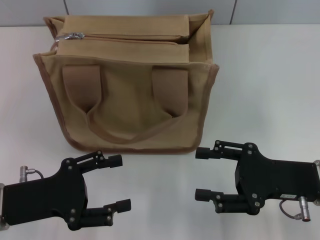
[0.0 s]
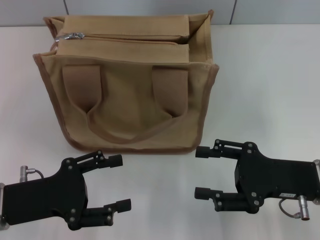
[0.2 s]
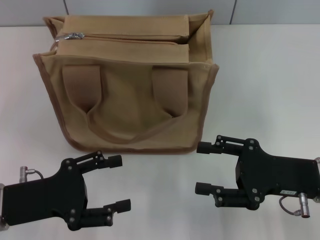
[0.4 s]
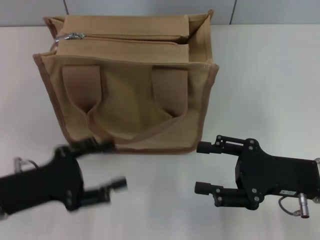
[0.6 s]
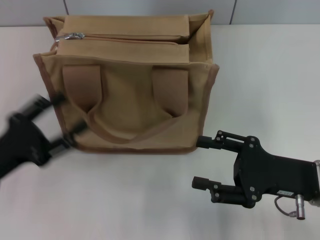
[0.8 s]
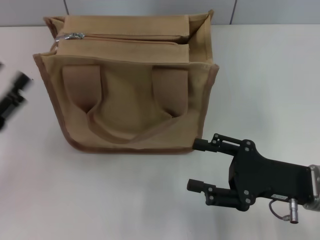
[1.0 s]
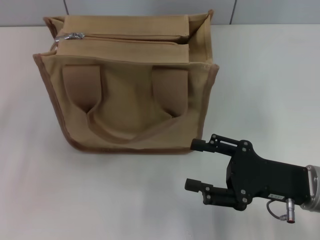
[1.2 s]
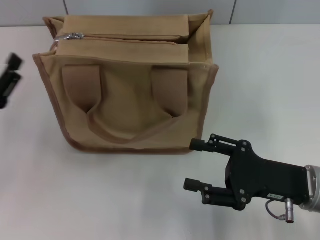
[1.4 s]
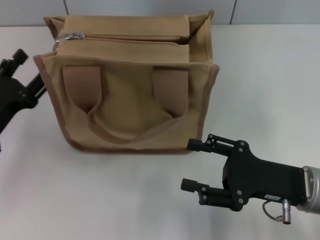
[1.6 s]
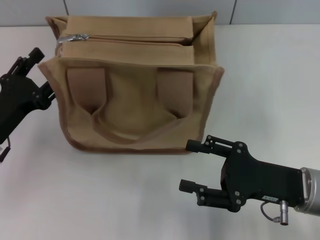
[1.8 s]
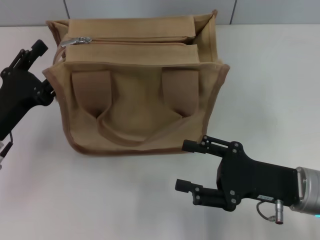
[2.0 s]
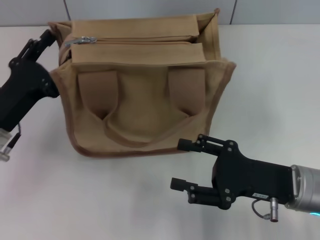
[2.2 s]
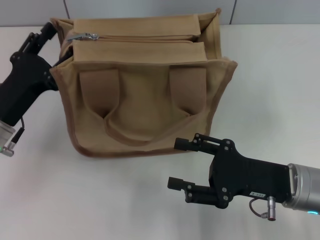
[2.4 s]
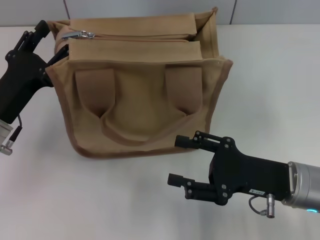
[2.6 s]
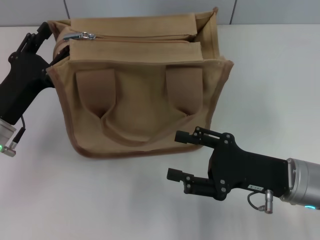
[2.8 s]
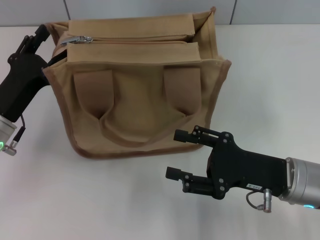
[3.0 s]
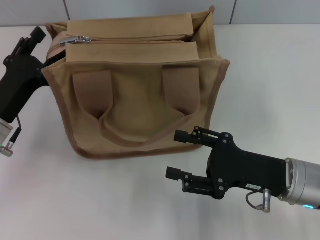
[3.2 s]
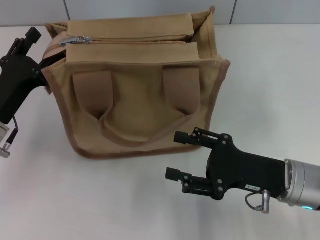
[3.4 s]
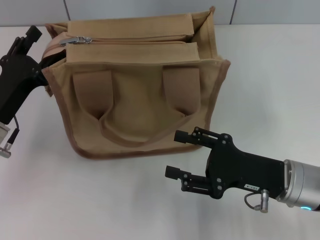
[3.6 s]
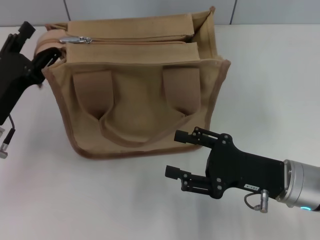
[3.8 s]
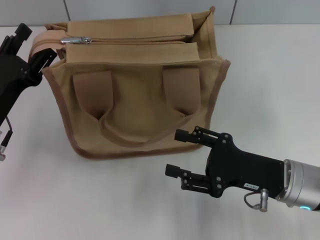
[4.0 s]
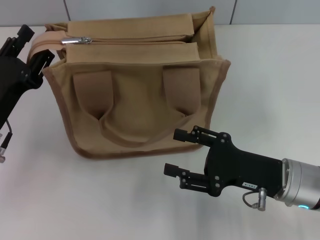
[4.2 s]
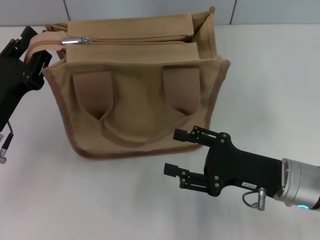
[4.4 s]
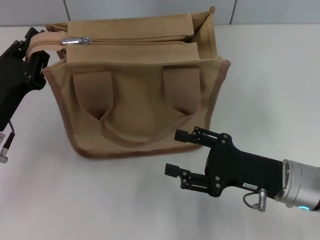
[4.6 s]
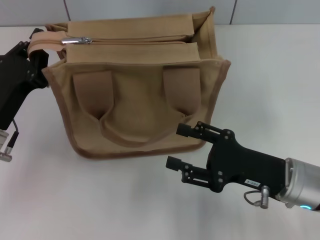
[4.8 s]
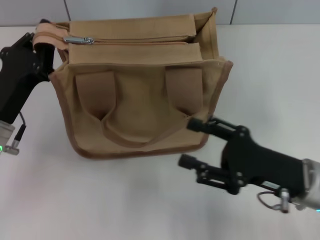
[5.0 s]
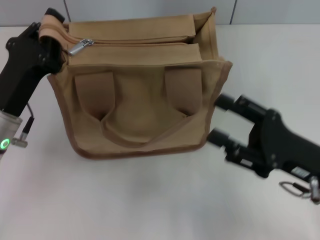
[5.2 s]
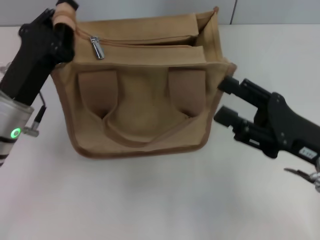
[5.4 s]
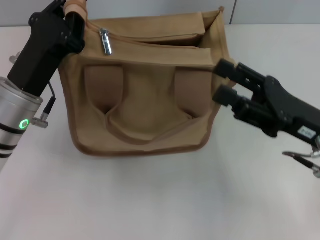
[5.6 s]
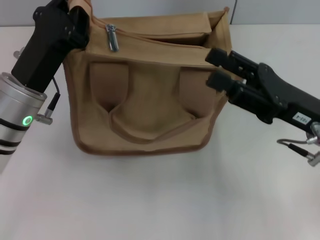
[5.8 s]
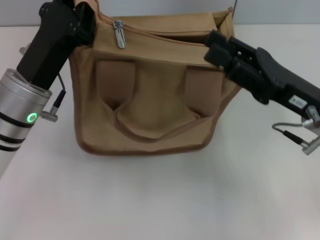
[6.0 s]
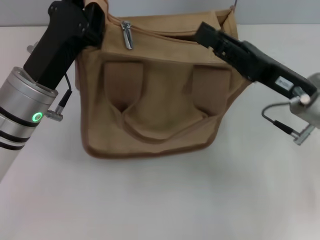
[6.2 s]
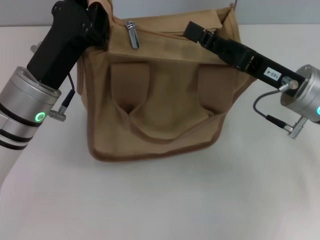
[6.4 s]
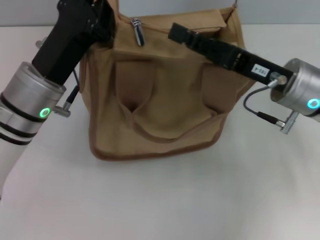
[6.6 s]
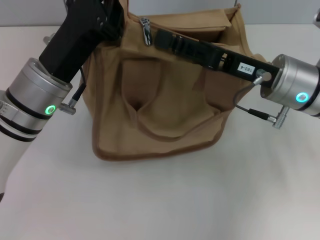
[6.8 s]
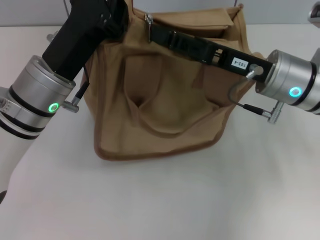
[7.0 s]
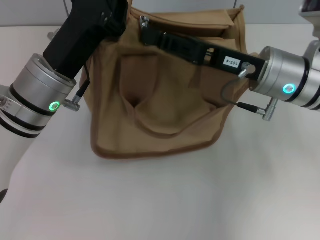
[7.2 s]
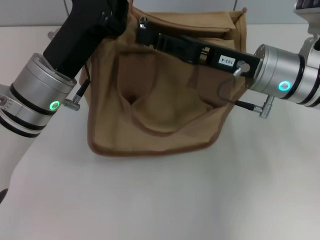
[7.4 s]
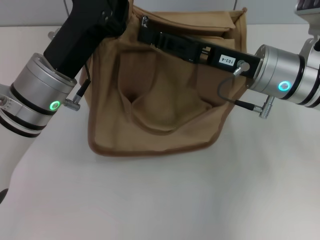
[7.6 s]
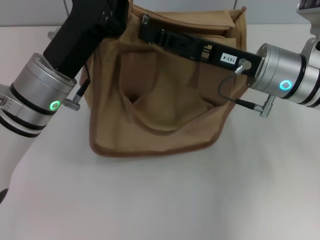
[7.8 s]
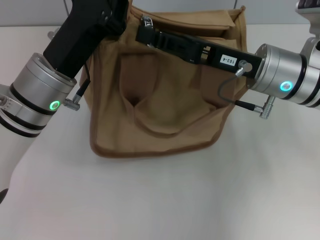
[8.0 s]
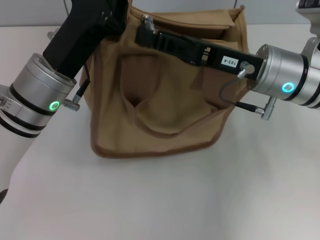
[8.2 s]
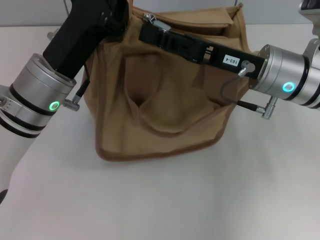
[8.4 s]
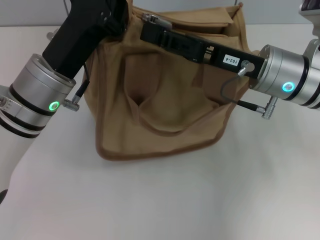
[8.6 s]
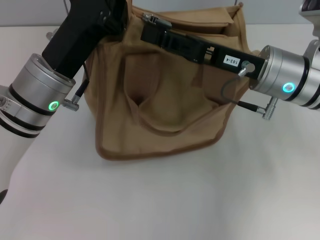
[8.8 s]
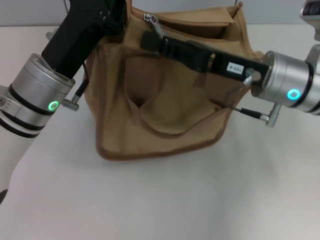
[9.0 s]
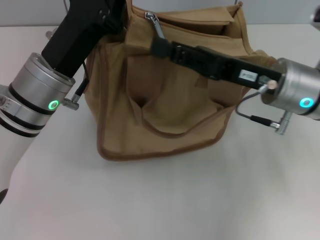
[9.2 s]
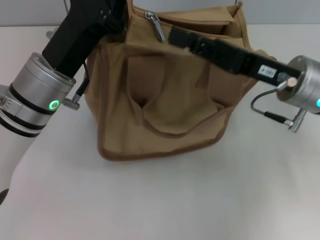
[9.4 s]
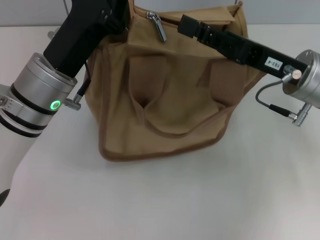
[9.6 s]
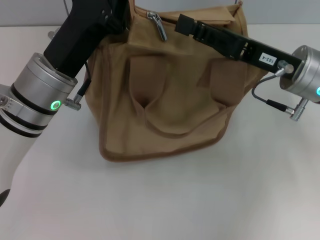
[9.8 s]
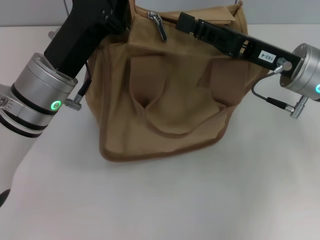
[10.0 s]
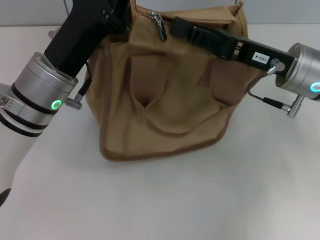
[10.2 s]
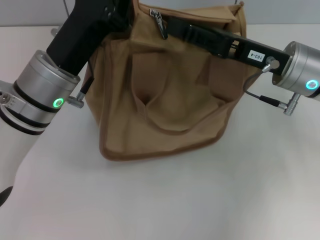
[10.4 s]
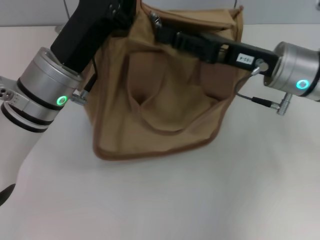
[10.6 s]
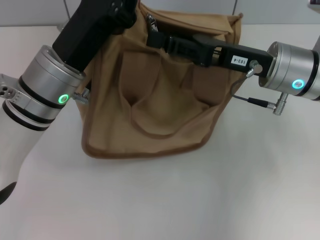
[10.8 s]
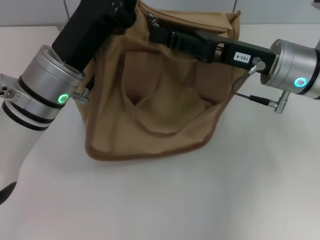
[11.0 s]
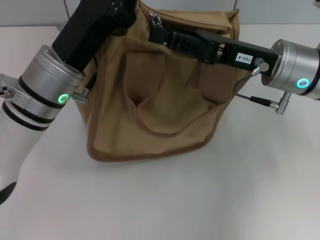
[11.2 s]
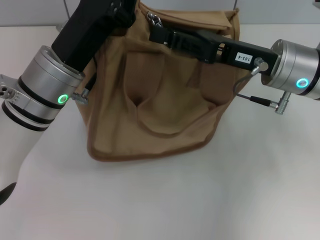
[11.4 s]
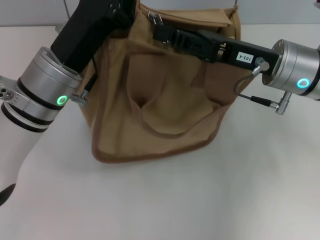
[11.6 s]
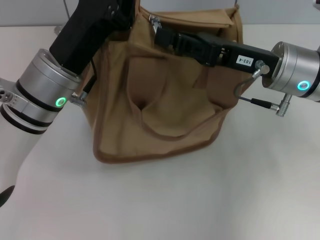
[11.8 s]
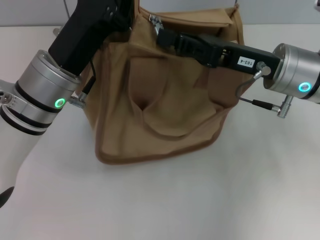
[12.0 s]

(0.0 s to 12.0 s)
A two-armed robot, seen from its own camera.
0.0 s - 1.6 s: The left gripper shifts by some 5 cm.
1.6 s - 3.0 s: The grippers make only small movements.
3.0 s - 4.4 s: The left gripper closes.
4.4 s - 6.0 s: The left gripper shifts about 5 cm to the right, and closes its fingers, while the right gripper shifts some 5 cm upward.
6.0 s - 7.6 s: The right gripper heads forward and to the left, covering some 10 cm, and closes its fingers.
7.6 s - 10.4 s: The grippers stay close to where they were, moving slightly.
10.4 s - 12.0 s: The right gripper closes up.

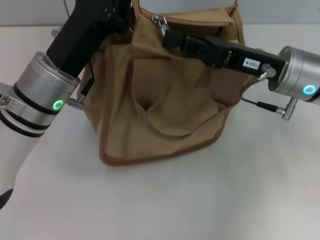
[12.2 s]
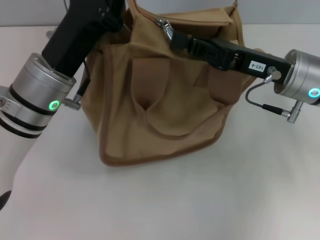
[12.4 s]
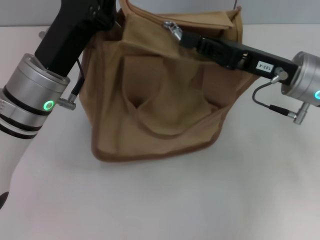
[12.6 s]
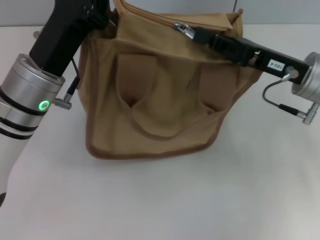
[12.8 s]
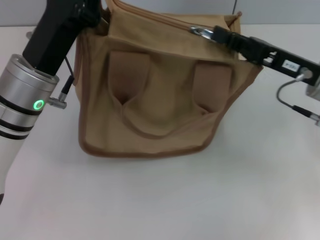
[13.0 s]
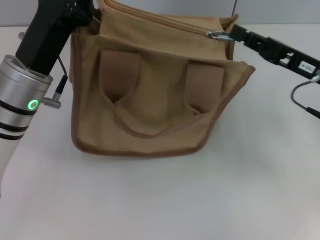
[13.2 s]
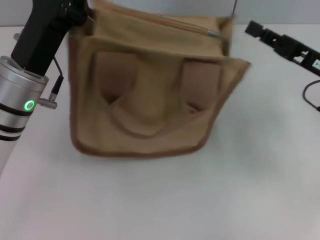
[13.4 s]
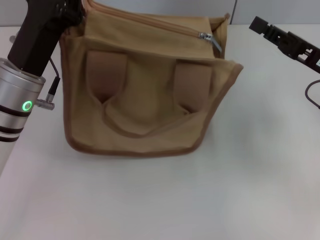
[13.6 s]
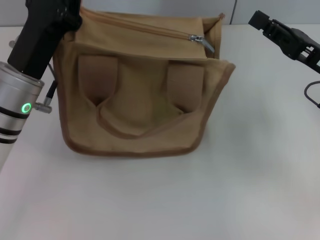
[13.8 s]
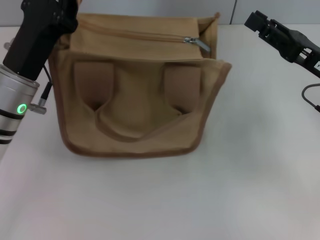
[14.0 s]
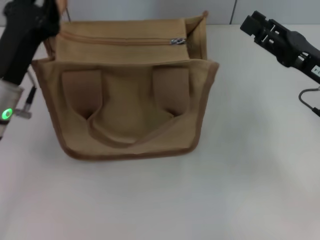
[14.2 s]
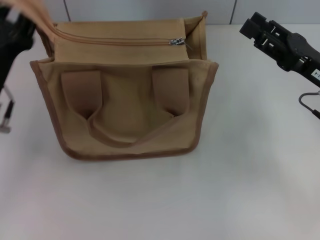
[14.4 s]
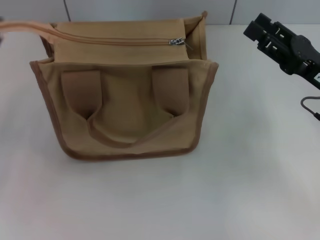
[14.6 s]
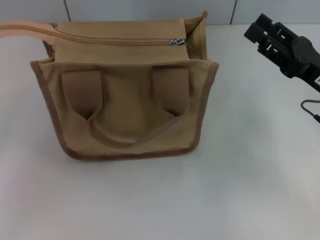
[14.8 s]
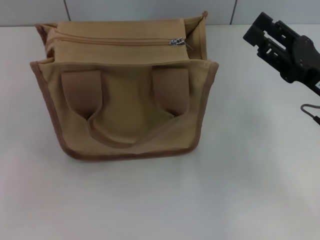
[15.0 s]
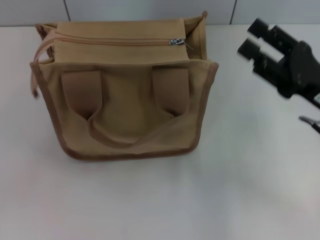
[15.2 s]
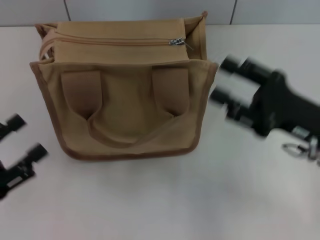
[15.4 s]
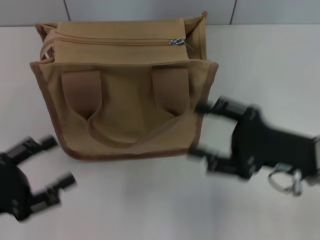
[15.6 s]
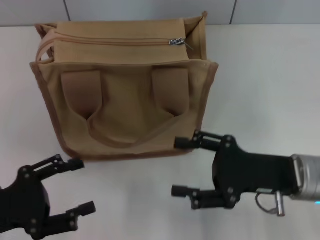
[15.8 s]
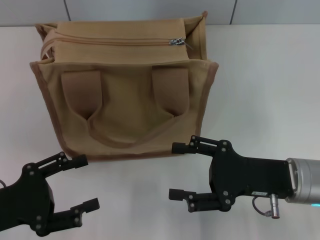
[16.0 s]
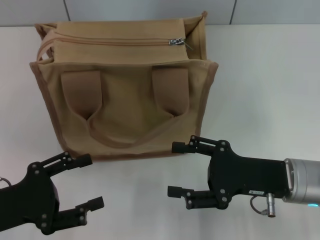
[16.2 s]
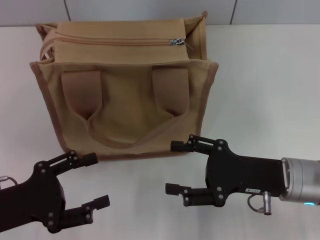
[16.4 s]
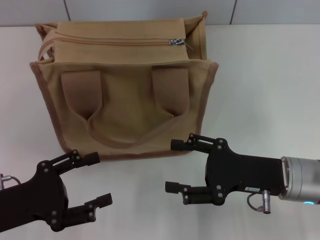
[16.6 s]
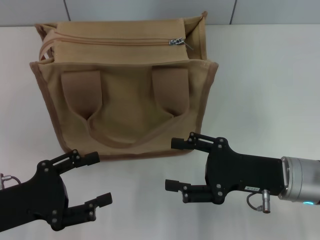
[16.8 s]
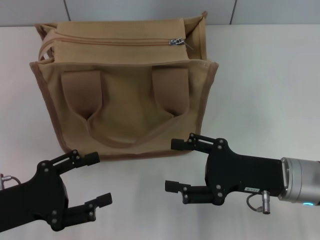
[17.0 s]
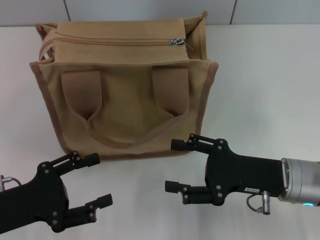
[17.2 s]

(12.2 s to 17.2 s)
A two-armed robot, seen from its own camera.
Step, 13.6 s - 14.8 s: Grab the zipper with your left hand.
12.2 s - 13.8 s: The right gripper is displaced to the right by approximately 10 cm.
13.8 s - 15.6 s: The left gripper moves backward and to the left, approximately 20 cm, and opens up, while the right gripper moves backward and to the left, about 10 cm, and opens up.
15.6 s - 17.2 s: The grippers make only small movements.
